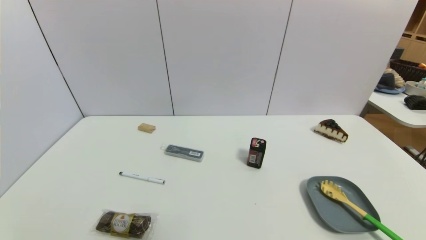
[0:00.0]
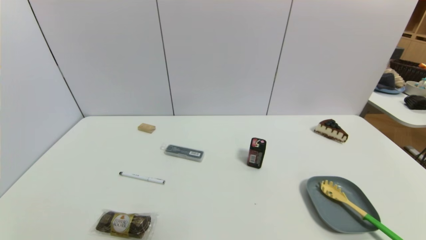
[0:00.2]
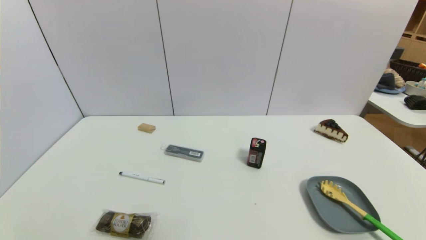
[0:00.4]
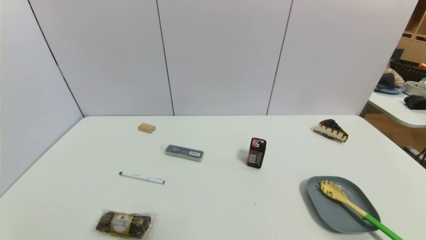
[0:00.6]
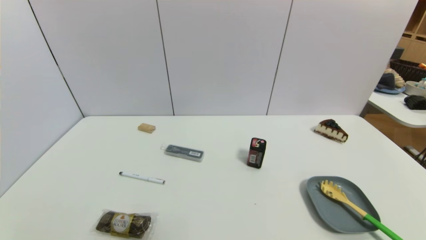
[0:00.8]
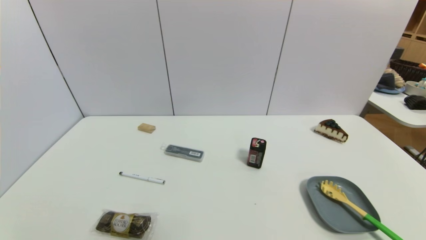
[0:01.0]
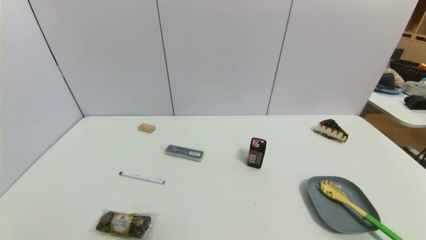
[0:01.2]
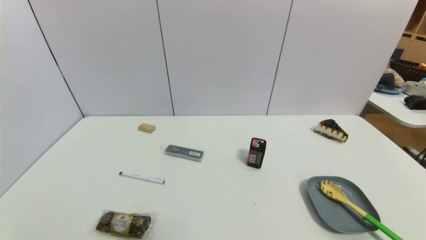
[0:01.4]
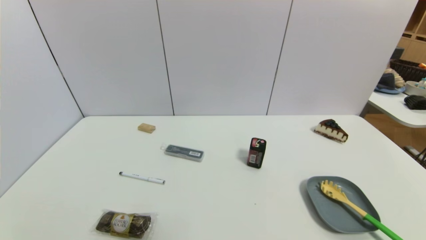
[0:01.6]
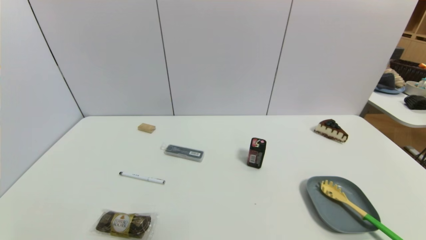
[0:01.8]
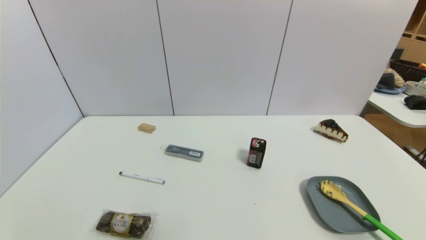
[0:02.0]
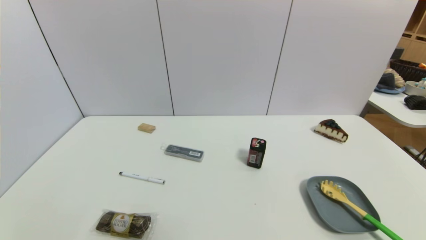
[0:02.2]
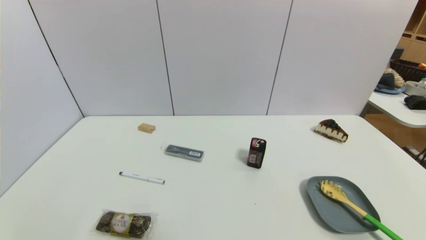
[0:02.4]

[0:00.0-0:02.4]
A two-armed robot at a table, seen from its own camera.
Task of the whole recording: use a gripper to pick the target object and place on the dish.
0:01.2 to 0:02.4: Neither gripper changes place.
